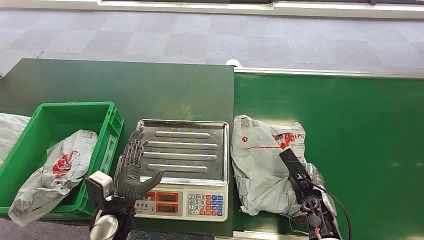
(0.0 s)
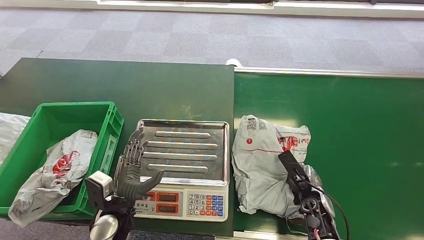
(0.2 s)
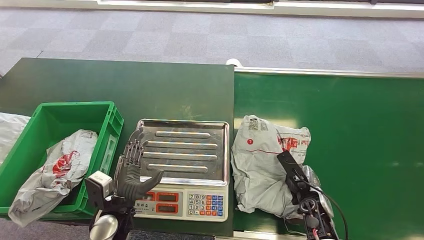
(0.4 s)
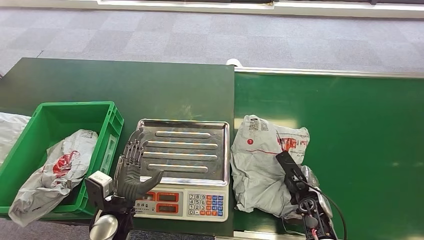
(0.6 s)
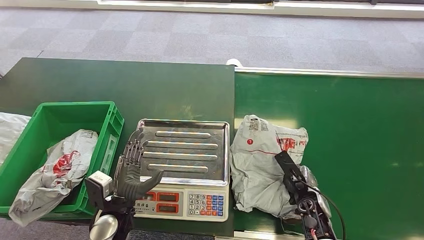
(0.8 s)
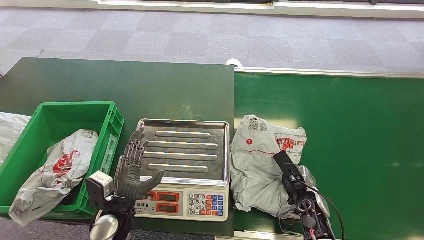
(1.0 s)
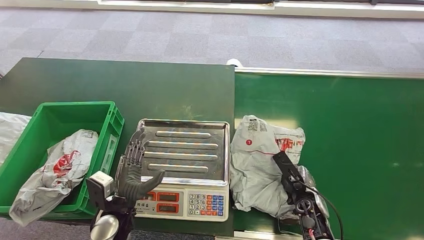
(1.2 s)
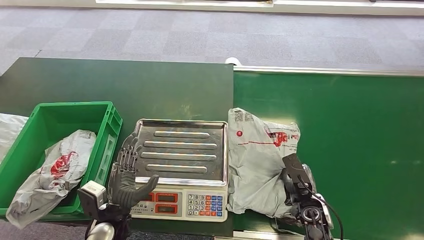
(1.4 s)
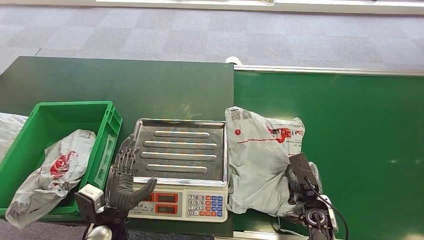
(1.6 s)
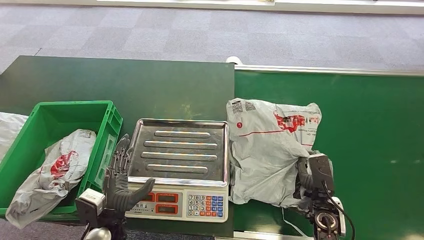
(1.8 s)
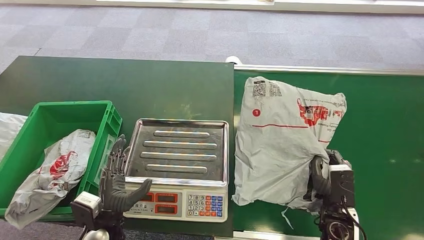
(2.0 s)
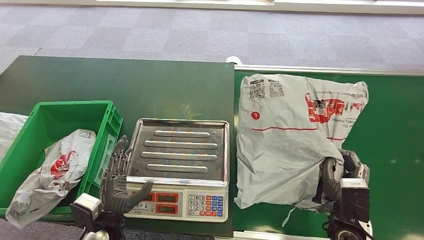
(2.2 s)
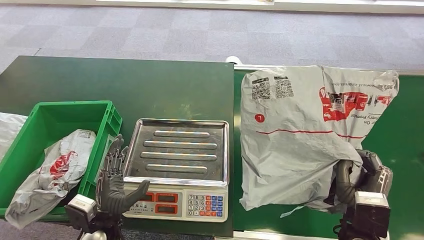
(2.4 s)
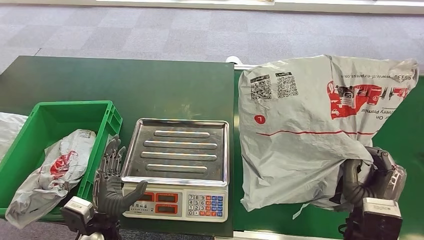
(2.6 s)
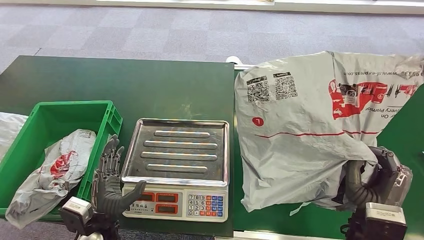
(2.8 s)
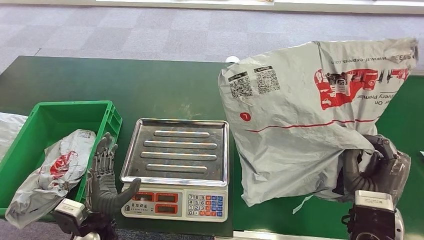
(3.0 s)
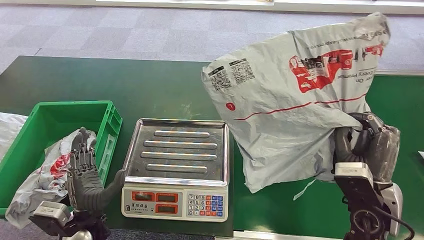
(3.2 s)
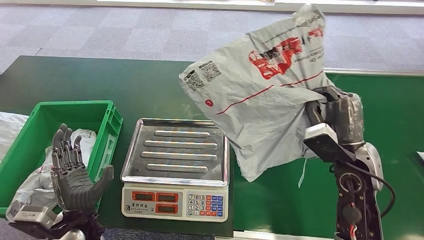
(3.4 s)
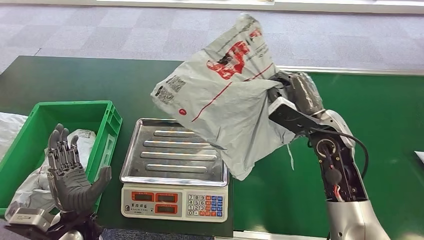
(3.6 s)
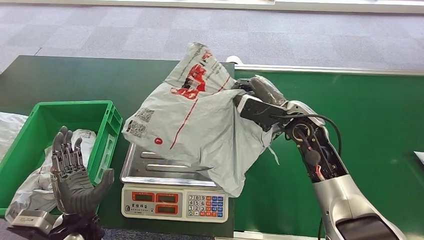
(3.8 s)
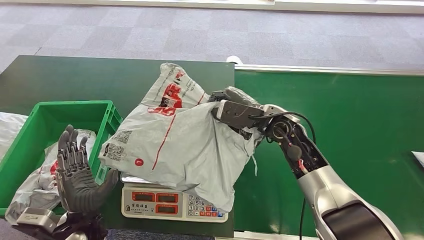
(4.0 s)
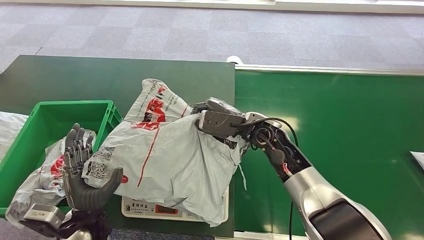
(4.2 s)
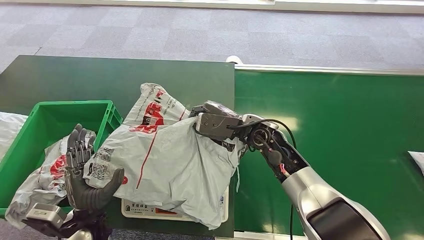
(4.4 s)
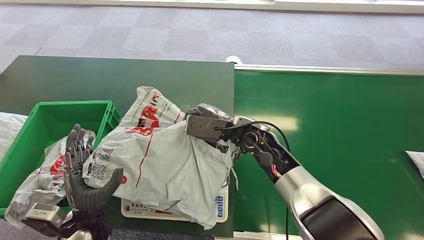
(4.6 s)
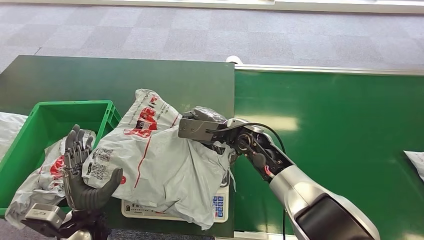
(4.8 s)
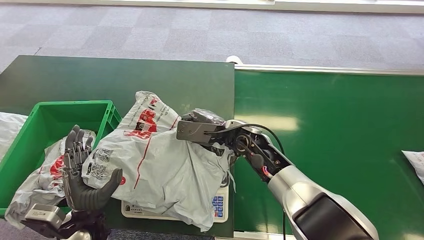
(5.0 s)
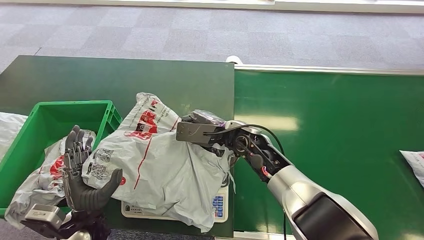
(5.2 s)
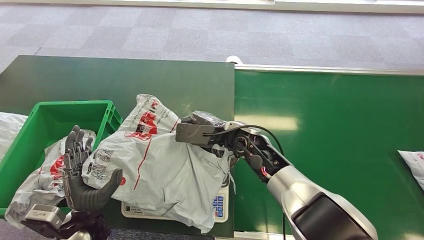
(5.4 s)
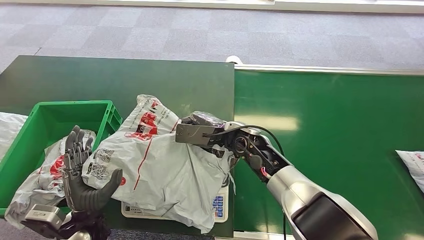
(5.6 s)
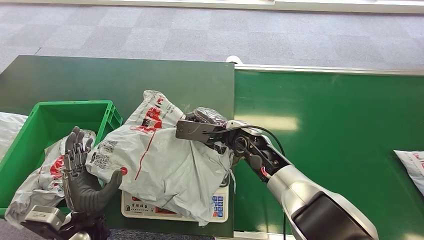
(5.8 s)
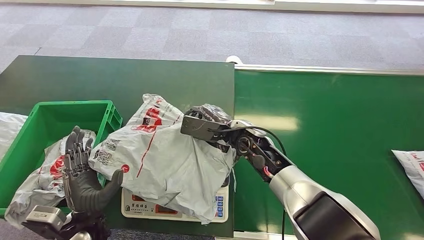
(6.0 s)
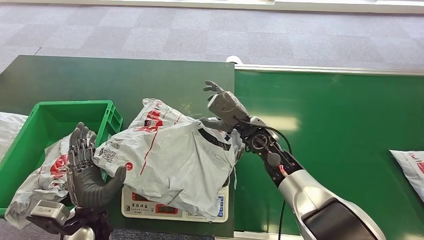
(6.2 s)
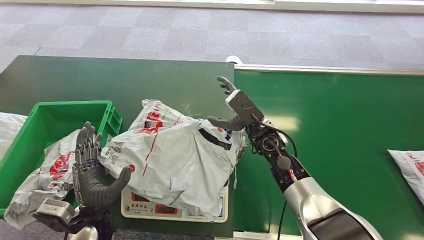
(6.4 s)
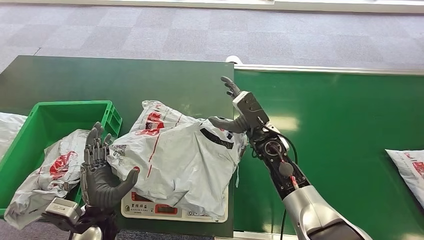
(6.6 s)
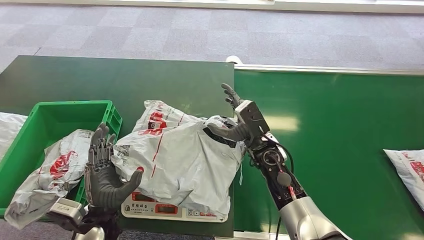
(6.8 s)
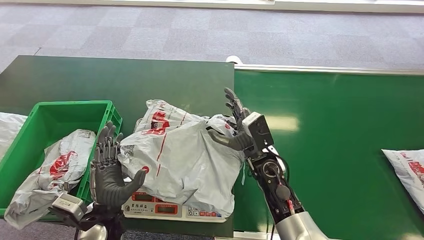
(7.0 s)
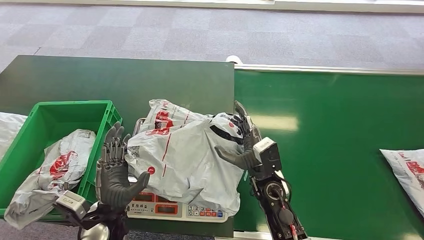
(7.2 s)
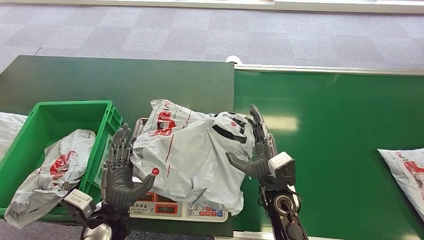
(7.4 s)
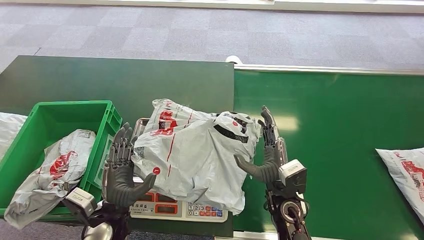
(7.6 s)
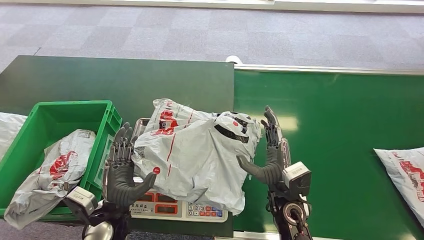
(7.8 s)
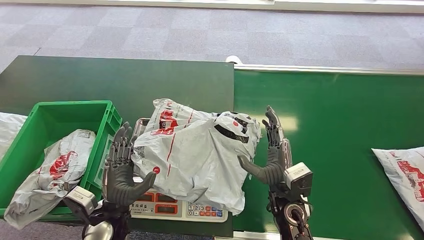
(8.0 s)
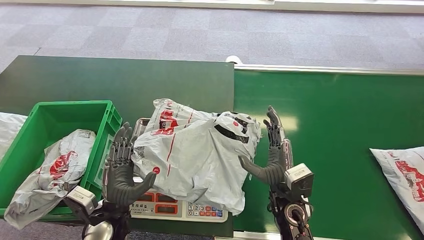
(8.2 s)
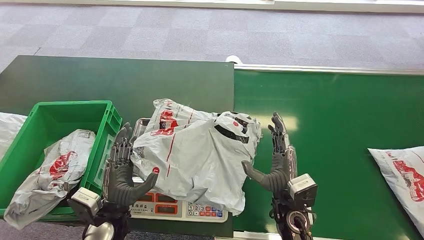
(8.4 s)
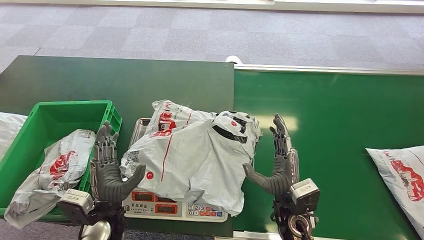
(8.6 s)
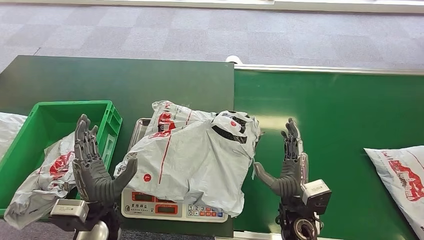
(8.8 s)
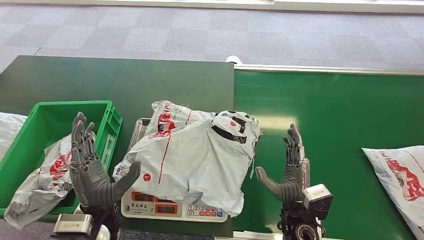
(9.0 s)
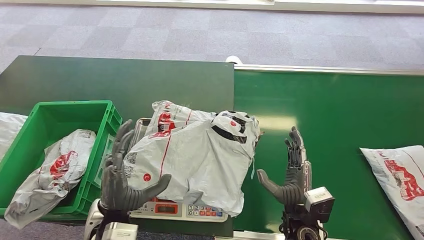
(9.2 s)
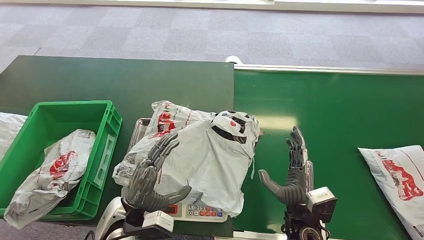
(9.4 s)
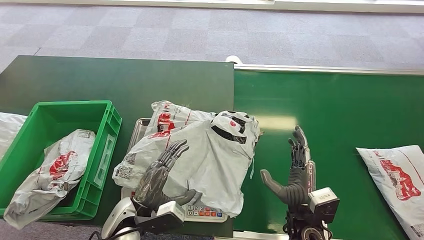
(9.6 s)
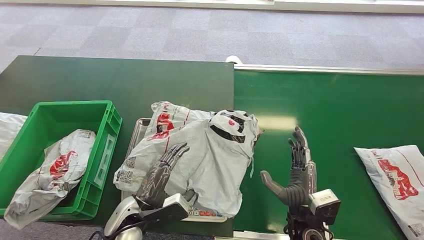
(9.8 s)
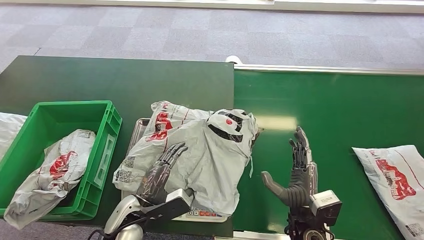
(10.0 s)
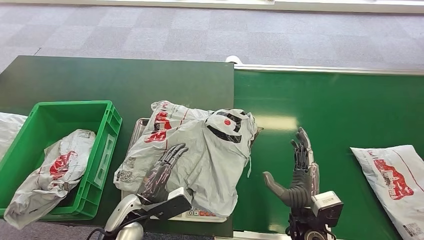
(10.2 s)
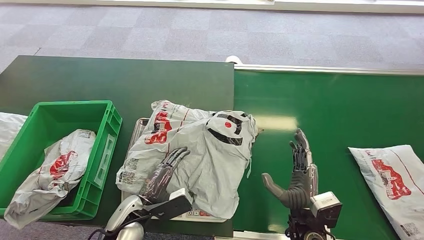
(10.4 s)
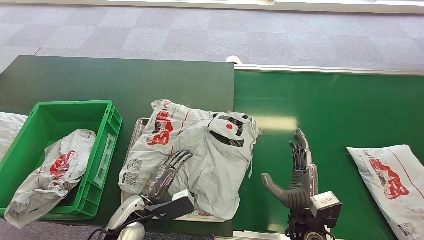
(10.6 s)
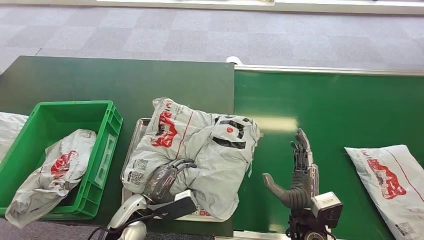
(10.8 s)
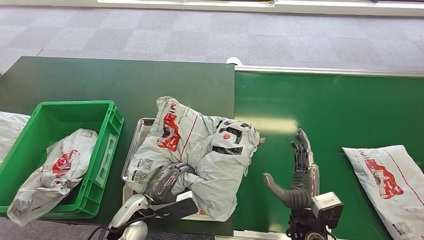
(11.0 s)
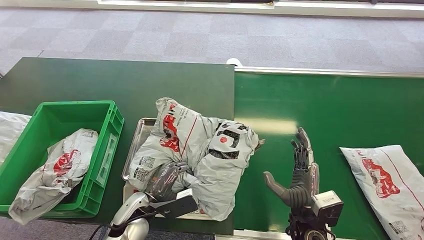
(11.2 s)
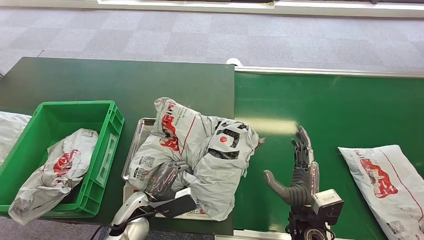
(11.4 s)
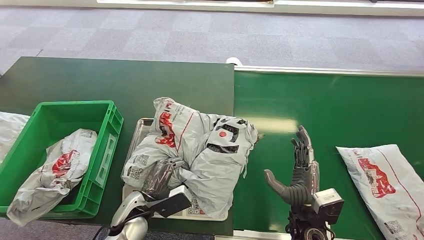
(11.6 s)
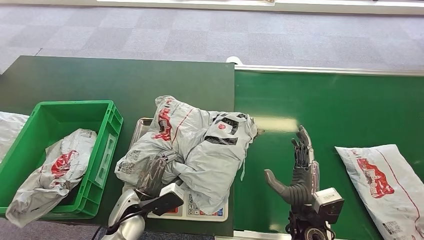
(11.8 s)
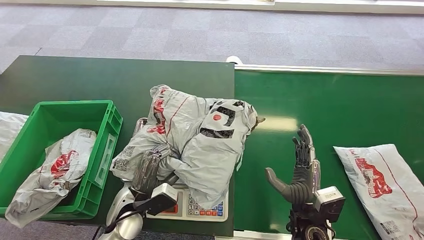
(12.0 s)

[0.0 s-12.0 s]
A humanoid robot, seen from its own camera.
Step, 0.0 to 2.4 s: Pick up the package from the conveyor belt.
Step, 3.2 to 7.4 s: Place the package onto the inbound machine.
4.4 to 6.0 s: The hands make only small movements.
7.6 to 9.0 s: The right hand moves roughly 5 cm.
9.0 to 10.4 s: The left hand heads downward, covering roughly 5 cm.

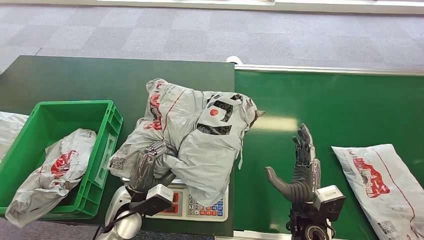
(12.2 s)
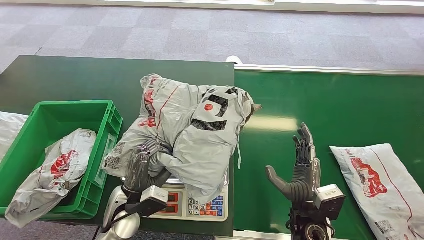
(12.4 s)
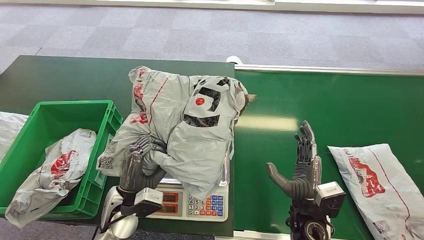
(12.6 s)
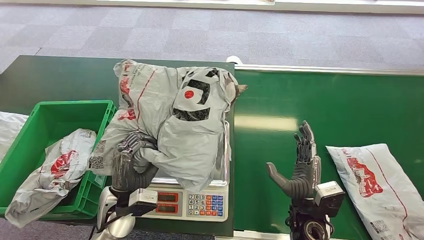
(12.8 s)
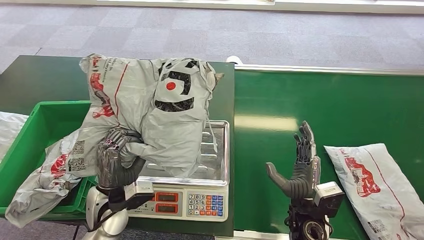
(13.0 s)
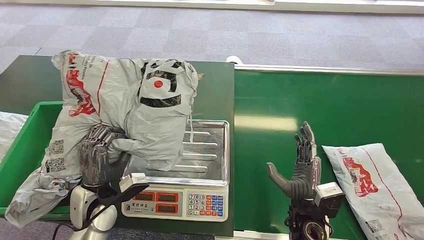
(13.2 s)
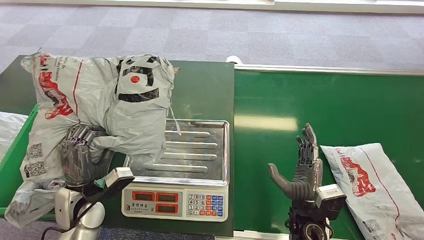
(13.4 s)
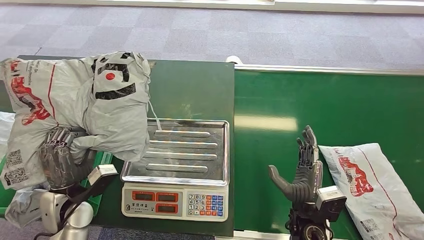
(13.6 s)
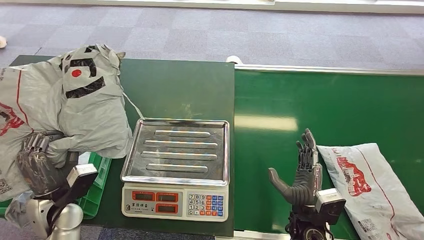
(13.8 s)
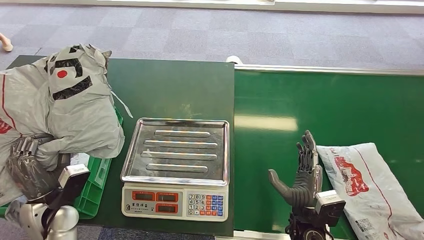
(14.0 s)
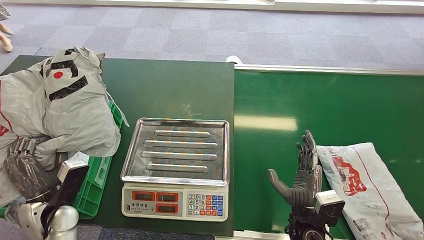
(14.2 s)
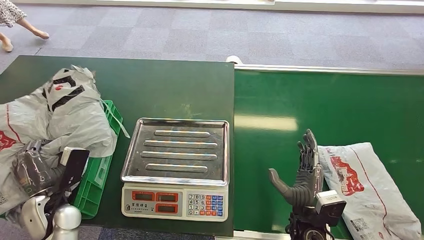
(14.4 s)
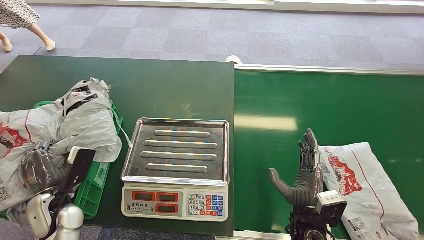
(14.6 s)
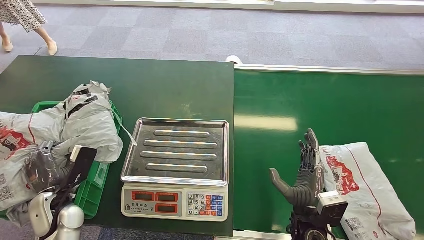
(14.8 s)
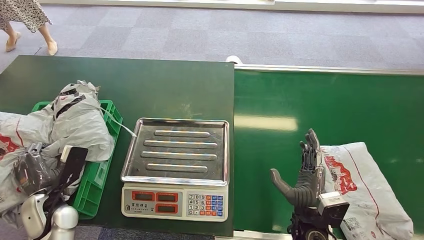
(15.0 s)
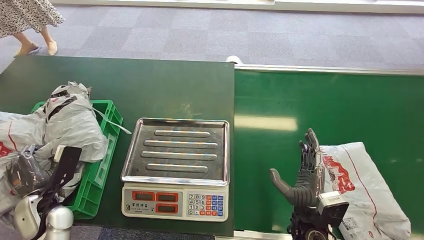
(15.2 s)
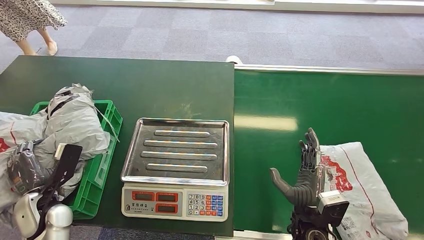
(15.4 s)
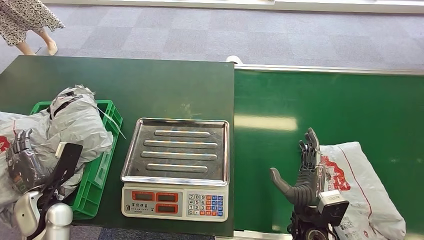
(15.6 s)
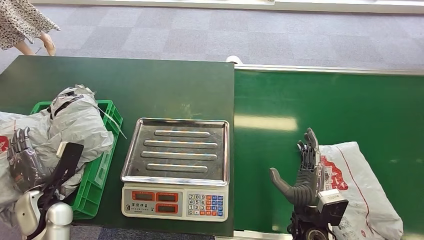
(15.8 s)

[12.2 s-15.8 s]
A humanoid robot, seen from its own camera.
Step, 13.8 to 15.8 s: Place the package into the parcel locker.
